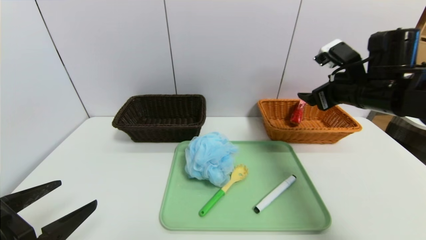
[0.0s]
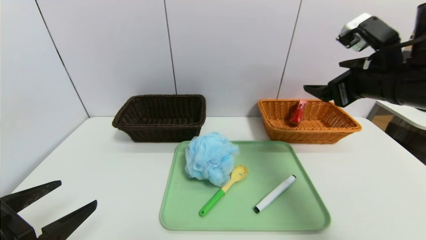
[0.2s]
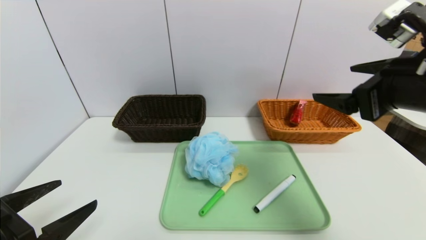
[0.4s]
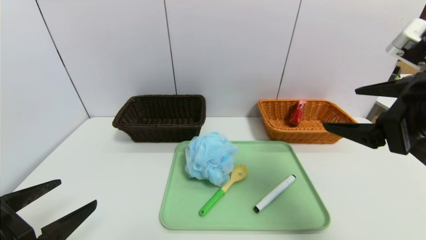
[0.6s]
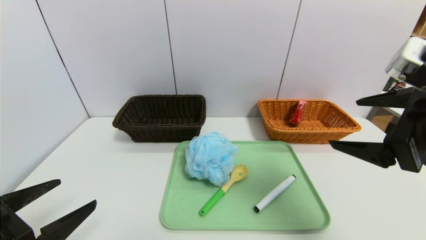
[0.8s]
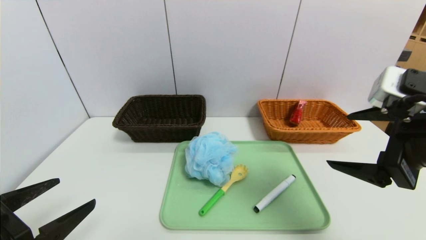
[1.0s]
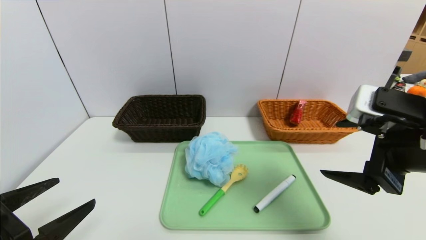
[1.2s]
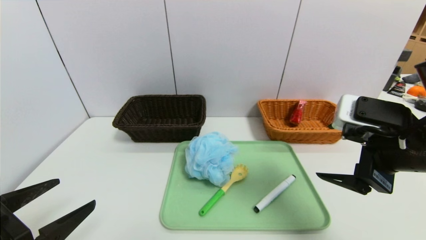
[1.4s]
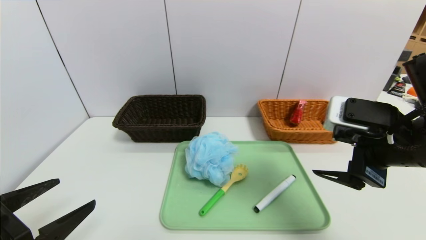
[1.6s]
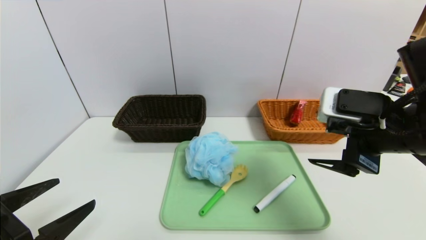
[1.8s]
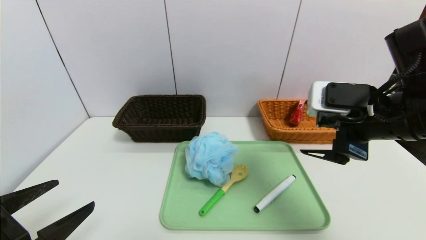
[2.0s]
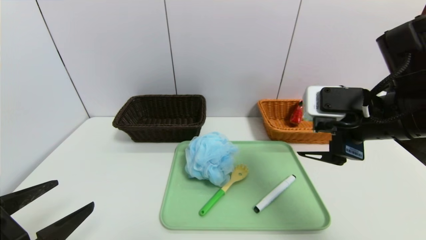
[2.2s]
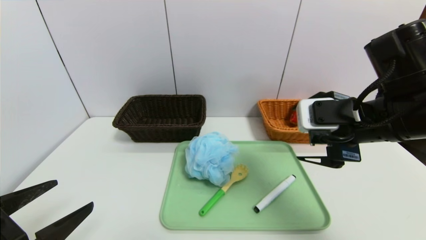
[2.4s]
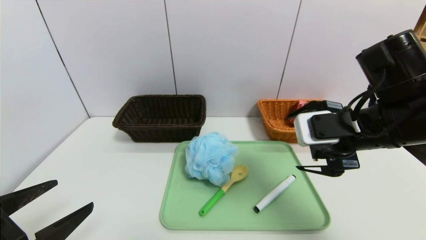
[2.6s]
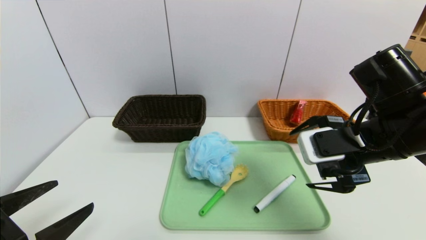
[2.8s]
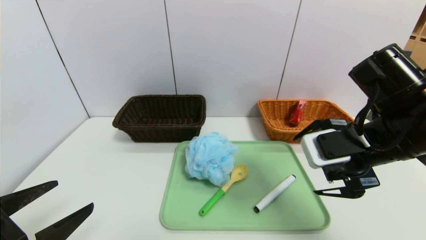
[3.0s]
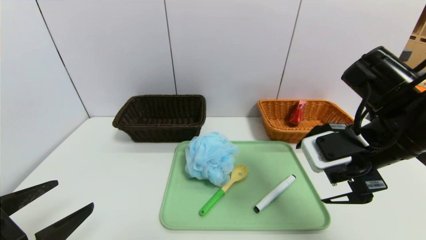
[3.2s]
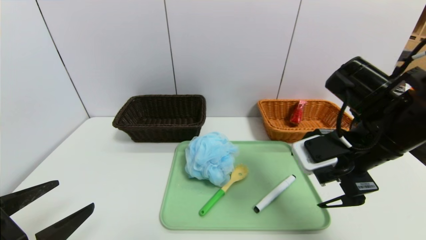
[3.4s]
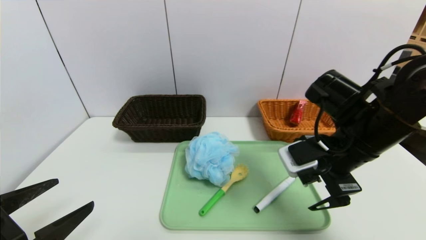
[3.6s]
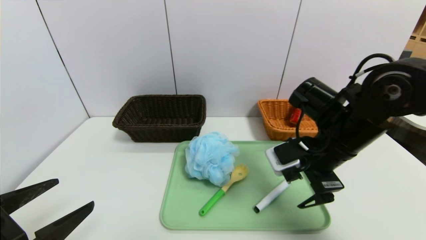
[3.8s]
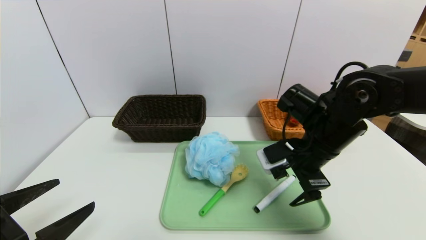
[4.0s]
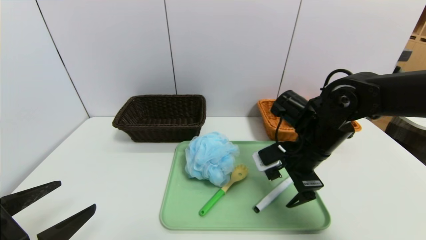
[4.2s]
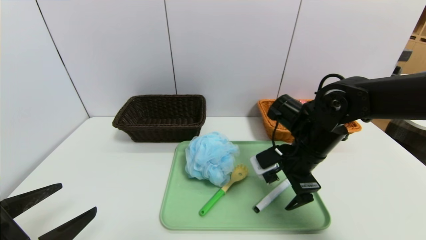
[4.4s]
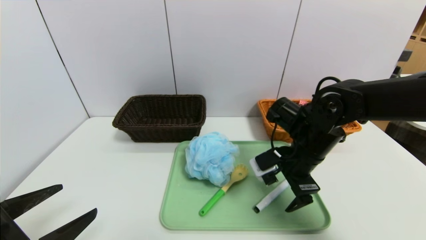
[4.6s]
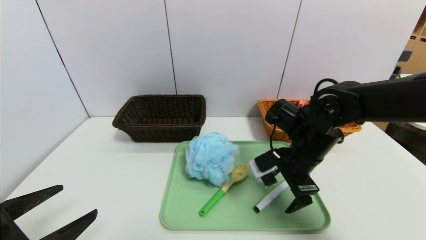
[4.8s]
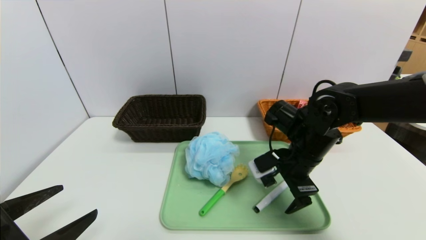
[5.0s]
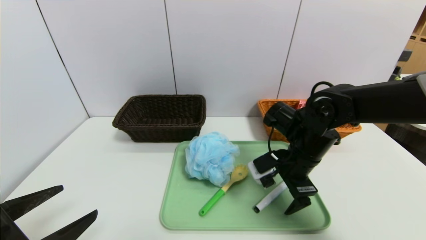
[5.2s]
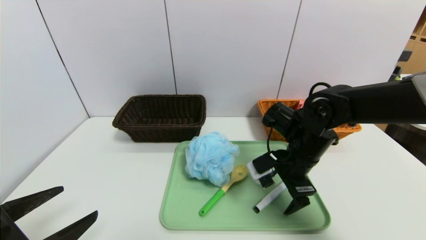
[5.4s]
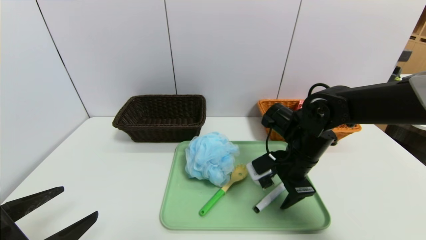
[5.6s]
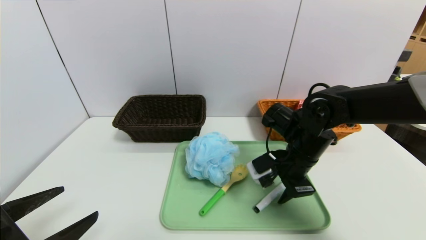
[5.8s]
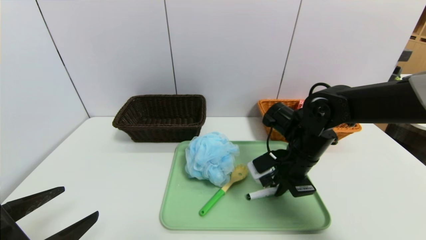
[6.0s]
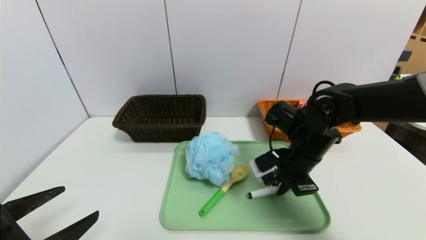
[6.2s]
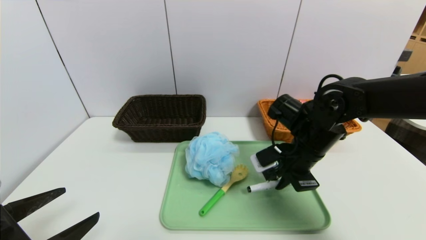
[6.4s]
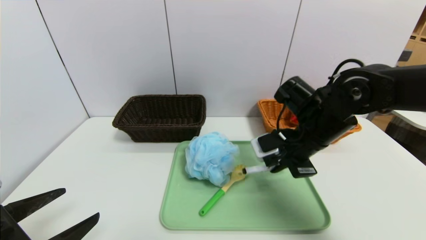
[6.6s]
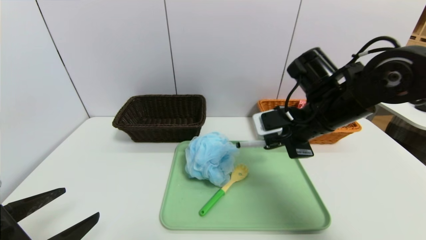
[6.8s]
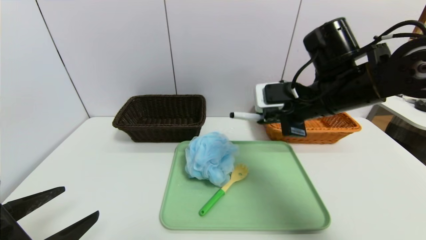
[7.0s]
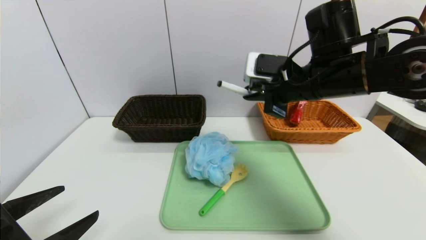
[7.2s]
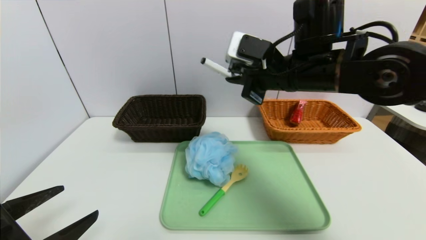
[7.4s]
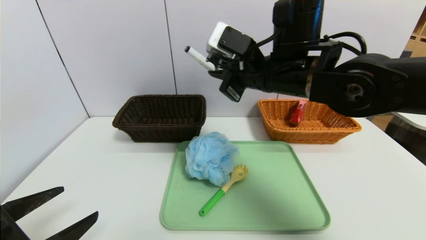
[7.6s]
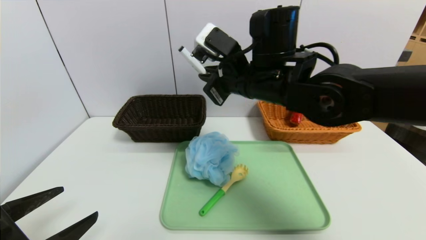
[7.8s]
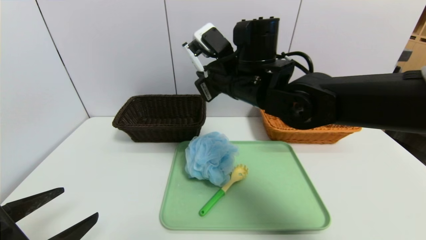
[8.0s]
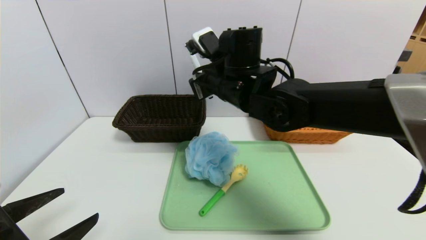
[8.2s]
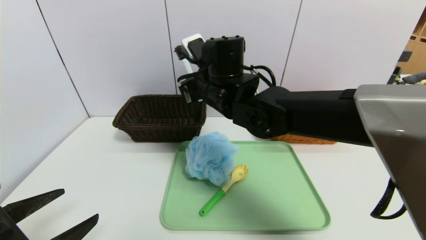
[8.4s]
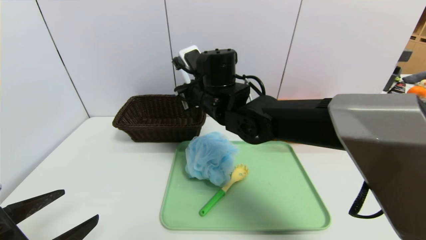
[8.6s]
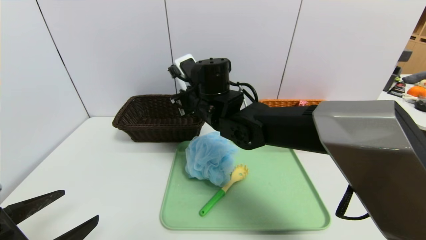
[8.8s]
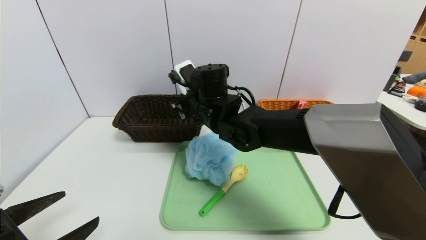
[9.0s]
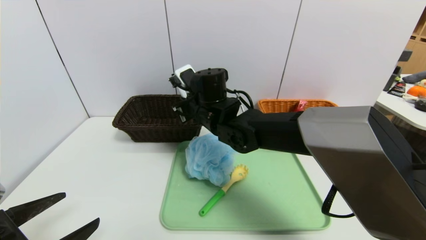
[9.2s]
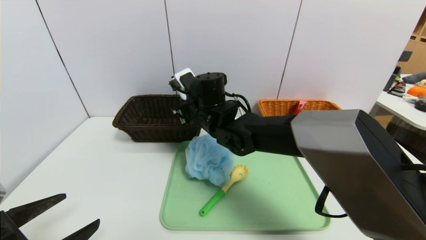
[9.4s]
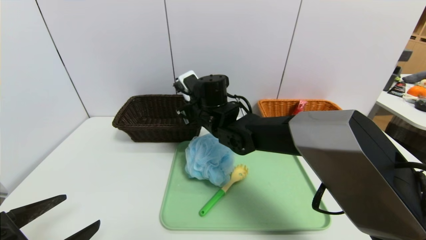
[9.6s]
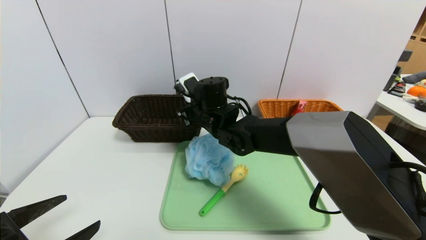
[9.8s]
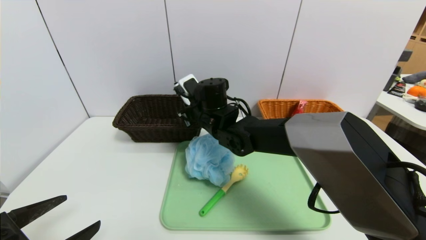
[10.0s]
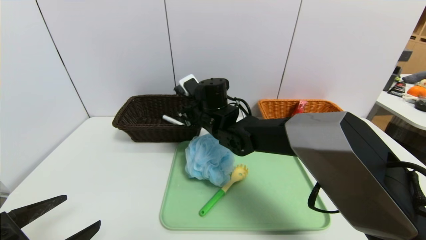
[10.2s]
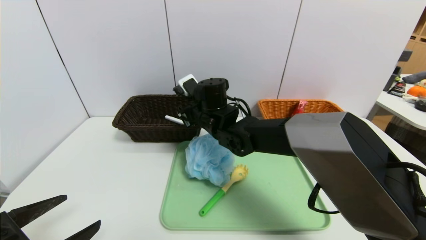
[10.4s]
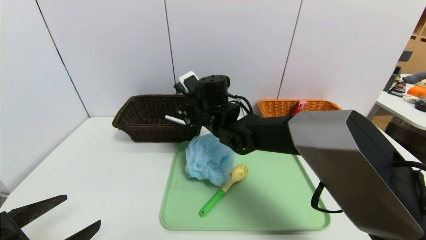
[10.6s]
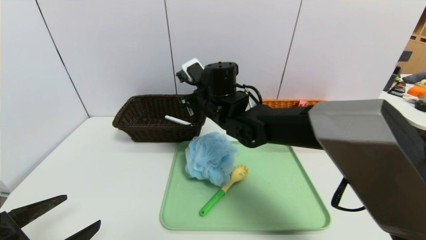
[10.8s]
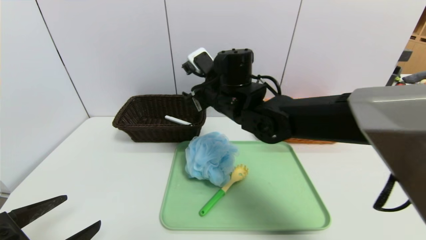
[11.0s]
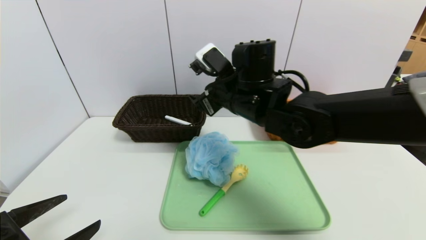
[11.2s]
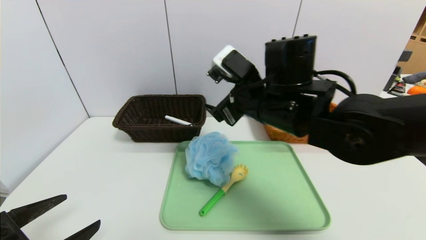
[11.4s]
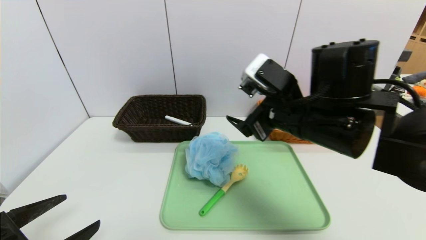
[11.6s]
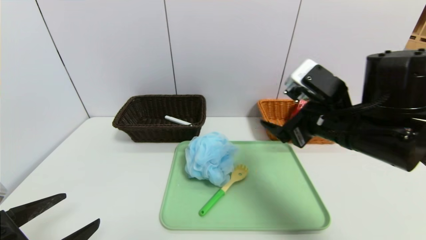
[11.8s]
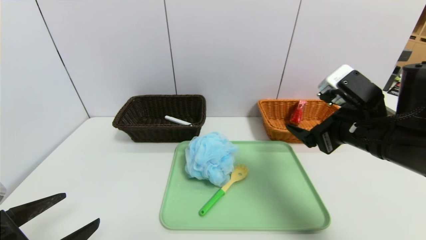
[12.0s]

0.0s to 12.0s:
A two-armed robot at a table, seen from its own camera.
Task of the whole recording: place the food in the right basket with the right gripper, and place the non food items in the left basket with the left gripper.
0.0s to 1.6s: The right gripper travels backward by roughly 15 cm.
3.0s to 4.4s: The right gripper travels downward, forward and to the left by approximately 15 cm.
4.4s to 6.0s: The right gripper closes up.
6.0s to 7.6s: The right gripper travels upward and to the left by approximately 15 cm.
7.6s to 9.0s: The right gripper is displaced to the left, downward and forward by about 15 cm.
9.0s to 10.4s: The right gripper opens its fingers.
10.4s to 12.0s: The right gripper shifts roughly 30 cm to the right and backward.

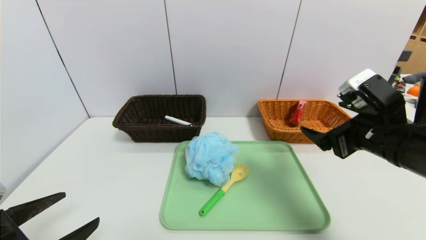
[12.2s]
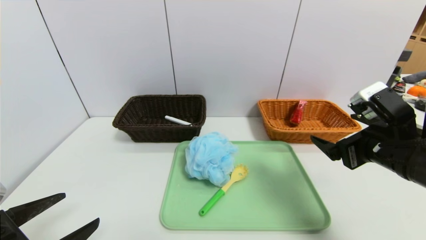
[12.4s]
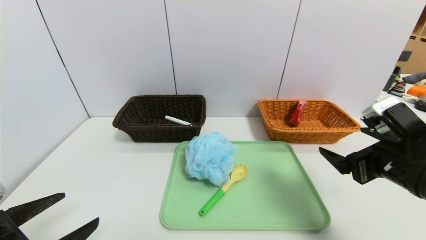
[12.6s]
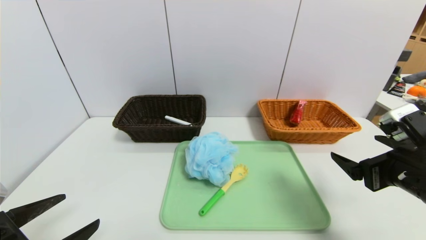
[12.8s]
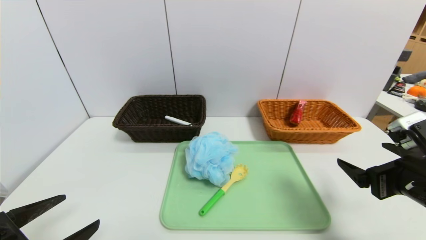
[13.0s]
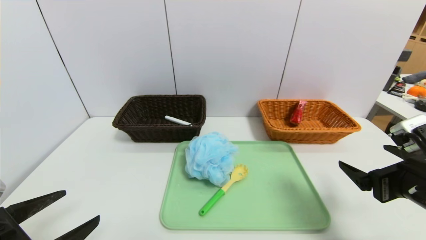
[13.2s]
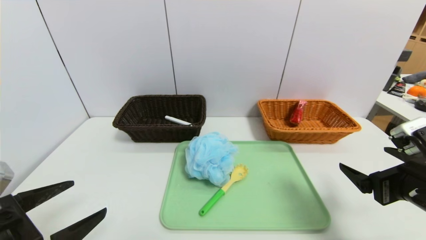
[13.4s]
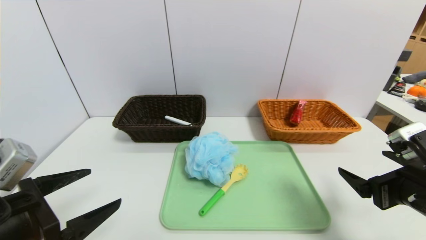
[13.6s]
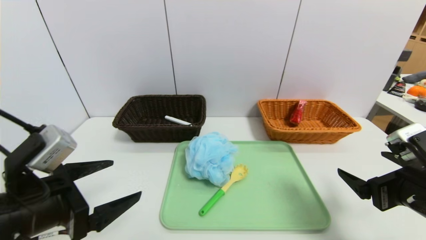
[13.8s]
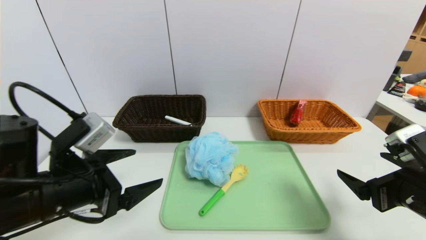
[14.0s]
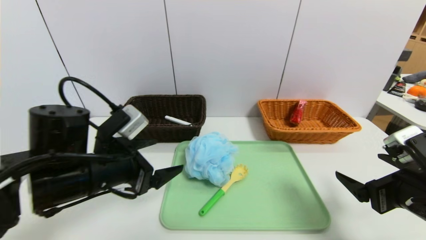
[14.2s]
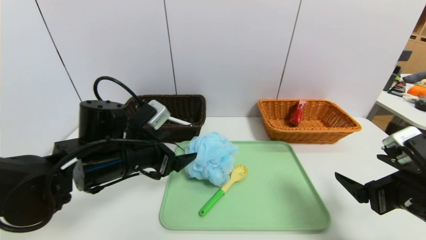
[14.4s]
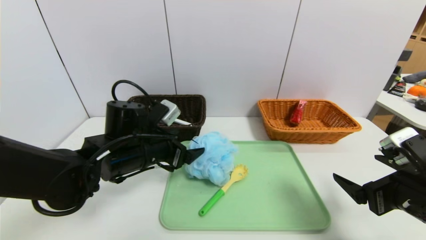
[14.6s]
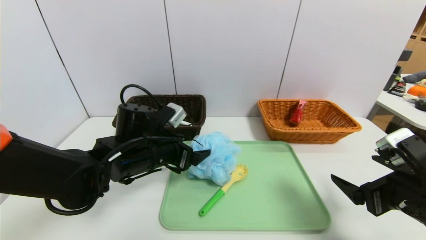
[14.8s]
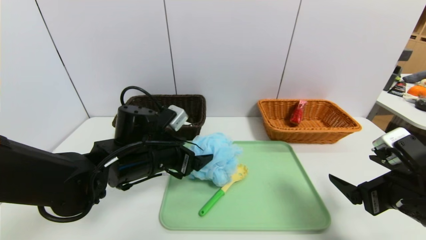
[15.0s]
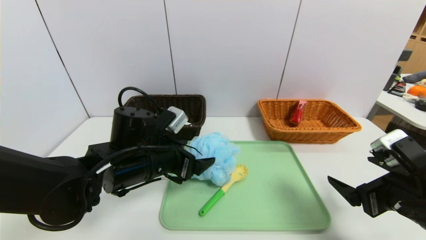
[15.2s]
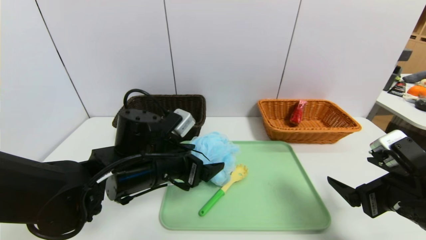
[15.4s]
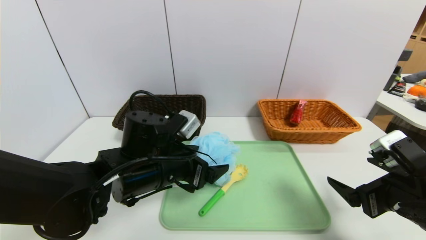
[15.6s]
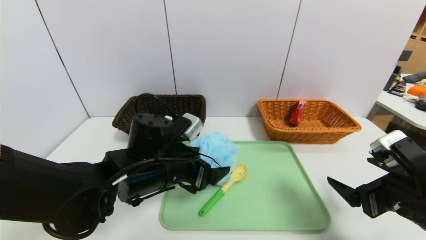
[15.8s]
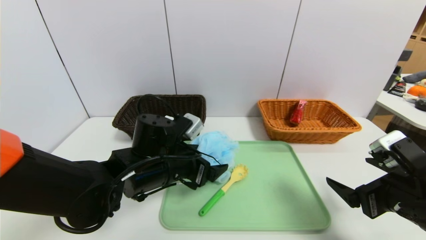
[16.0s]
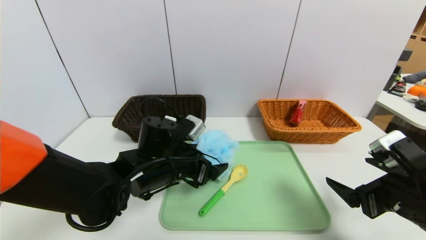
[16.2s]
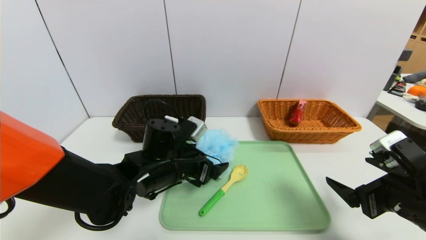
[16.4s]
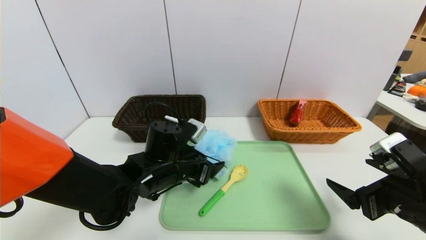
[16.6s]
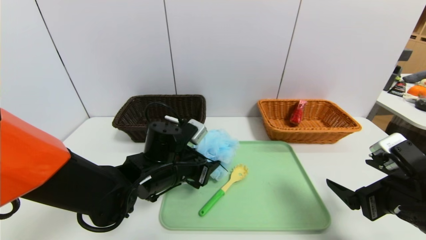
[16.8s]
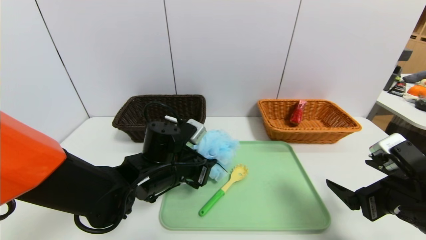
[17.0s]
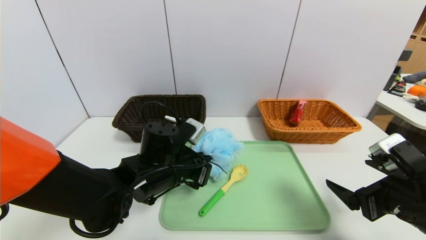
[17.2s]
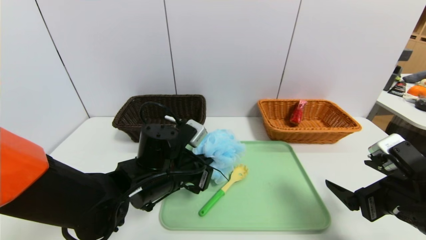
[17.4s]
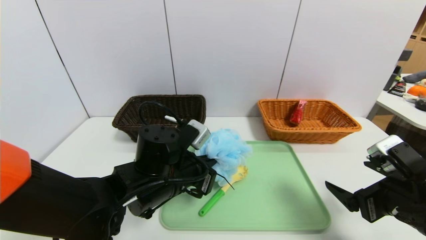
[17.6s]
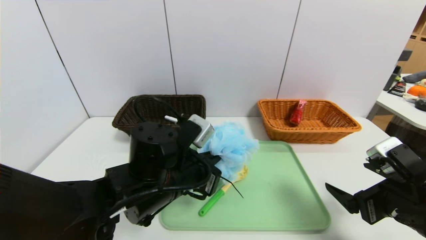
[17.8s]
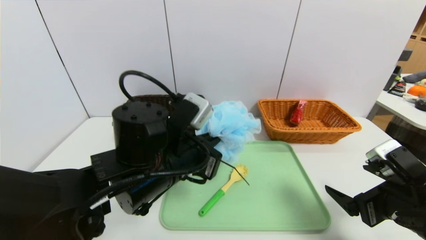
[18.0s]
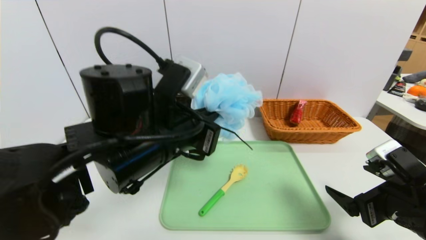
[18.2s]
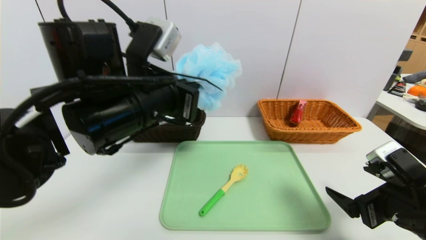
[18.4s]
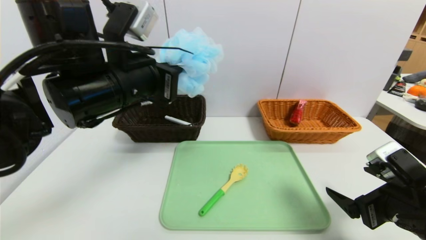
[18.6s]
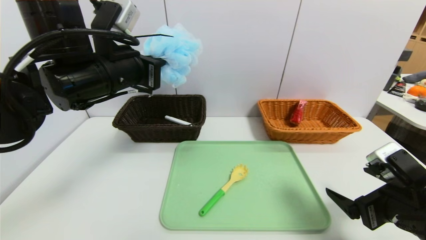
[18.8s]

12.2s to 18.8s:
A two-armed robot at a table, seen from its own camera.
Task of the whole recording: place the food in the right basket with the right gripper, and place the non food items in the left basket with the left gripper.
12.2s to 13.8s: The right gripper goes some 10 cm downward and backward. Meanwhile the left gripper heads forward, covering roughly 5 cm.
13.8s to 15.4s: The left gripper moves to the right and forward, roughly 15 cm.
15.4s to 17.2s: The left gripper closes up.
17.2s to 18.8s: The left gripper is displaced upward and to the left by roughly 20 cm.
